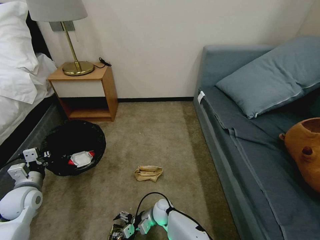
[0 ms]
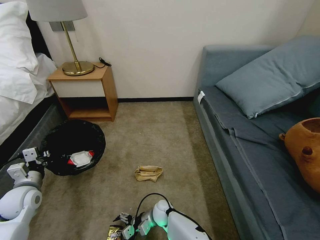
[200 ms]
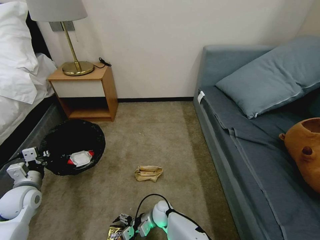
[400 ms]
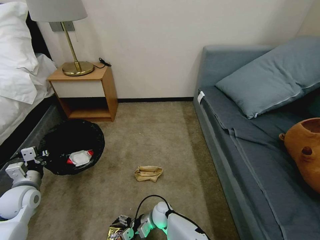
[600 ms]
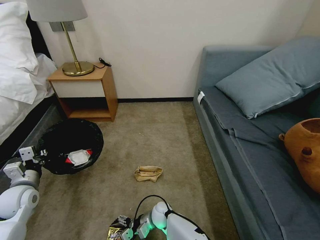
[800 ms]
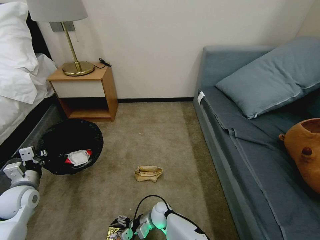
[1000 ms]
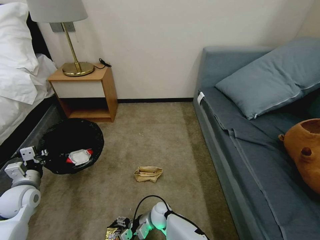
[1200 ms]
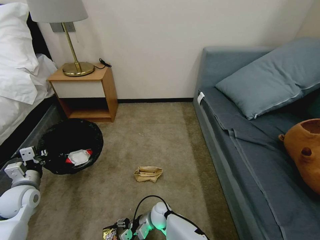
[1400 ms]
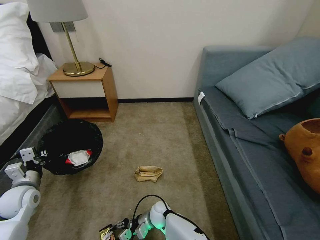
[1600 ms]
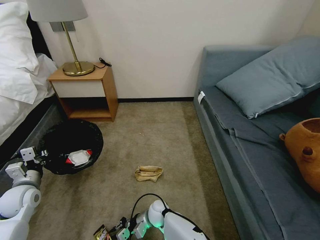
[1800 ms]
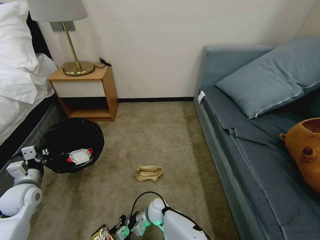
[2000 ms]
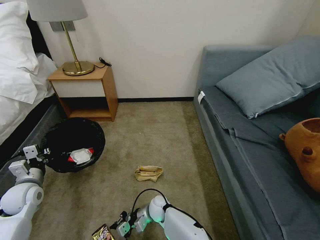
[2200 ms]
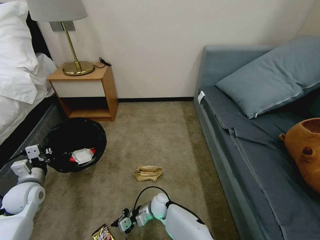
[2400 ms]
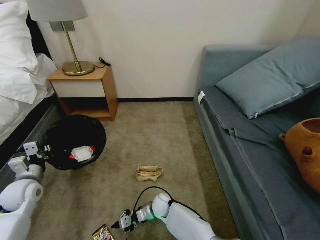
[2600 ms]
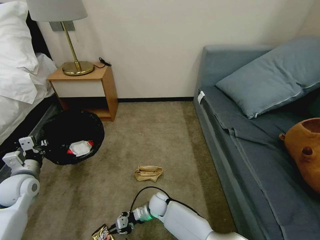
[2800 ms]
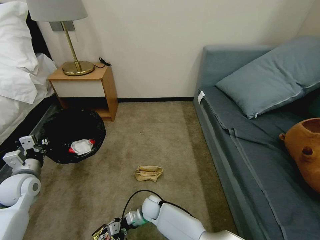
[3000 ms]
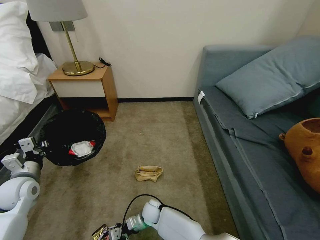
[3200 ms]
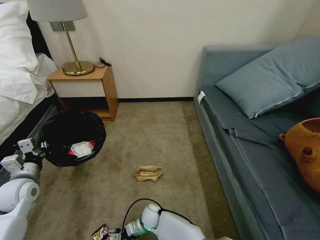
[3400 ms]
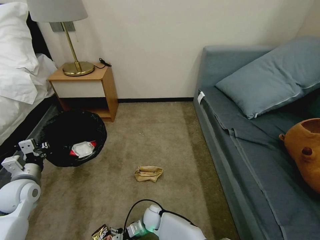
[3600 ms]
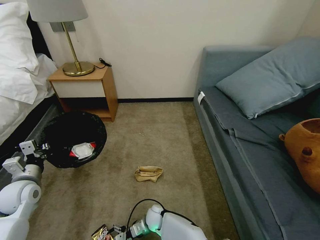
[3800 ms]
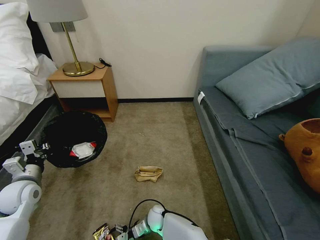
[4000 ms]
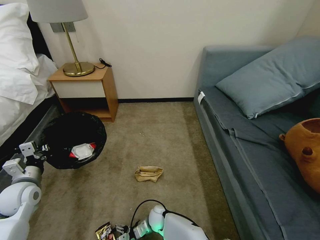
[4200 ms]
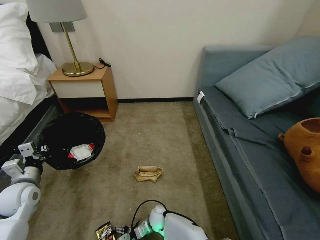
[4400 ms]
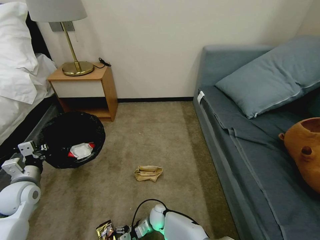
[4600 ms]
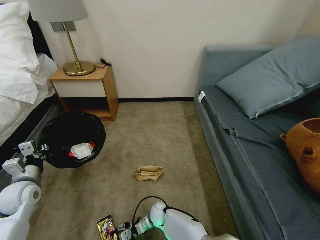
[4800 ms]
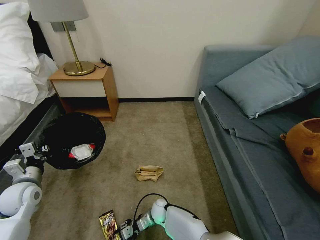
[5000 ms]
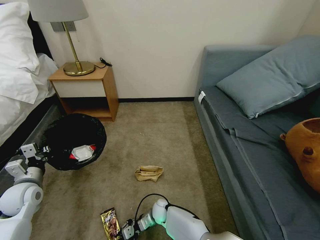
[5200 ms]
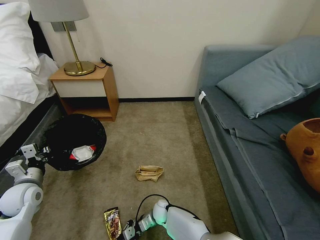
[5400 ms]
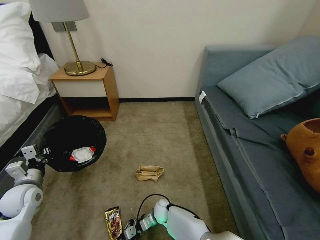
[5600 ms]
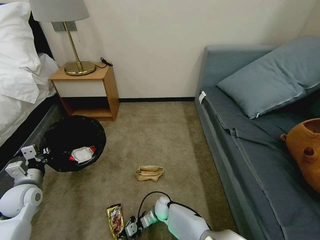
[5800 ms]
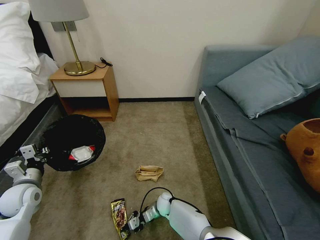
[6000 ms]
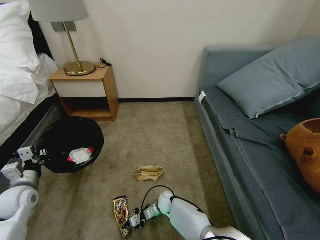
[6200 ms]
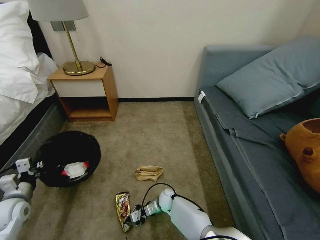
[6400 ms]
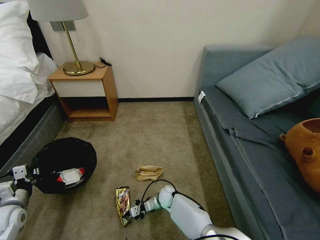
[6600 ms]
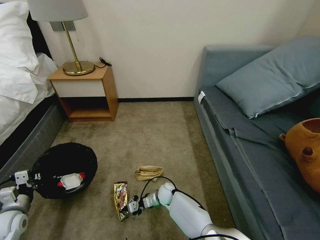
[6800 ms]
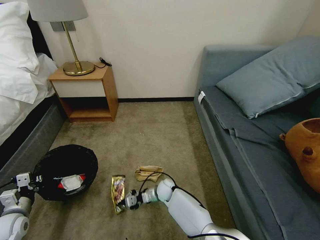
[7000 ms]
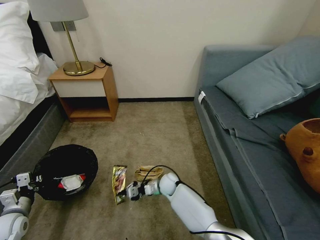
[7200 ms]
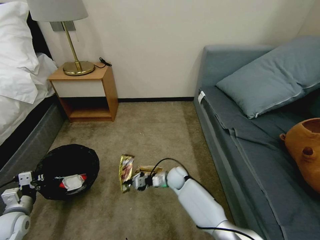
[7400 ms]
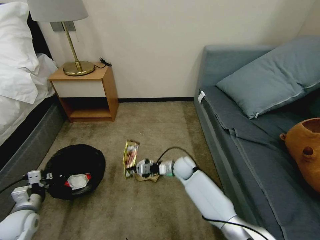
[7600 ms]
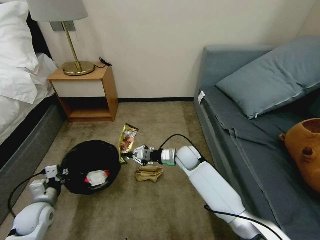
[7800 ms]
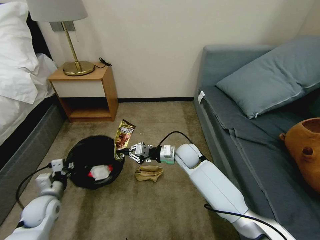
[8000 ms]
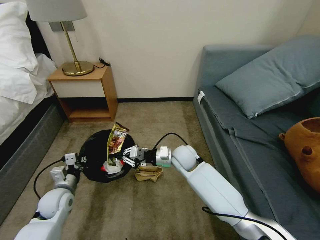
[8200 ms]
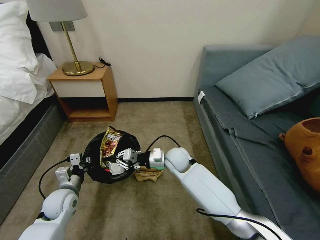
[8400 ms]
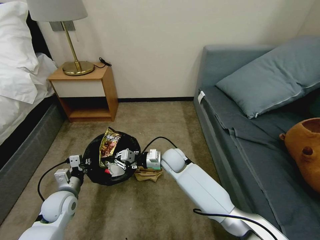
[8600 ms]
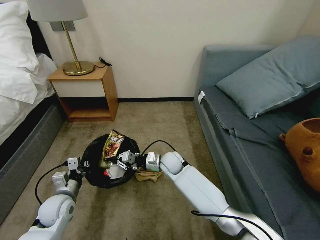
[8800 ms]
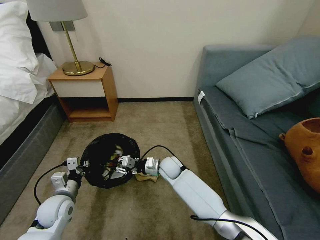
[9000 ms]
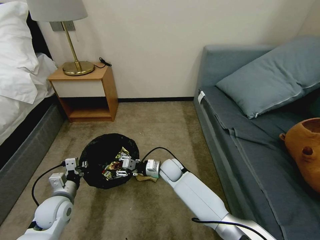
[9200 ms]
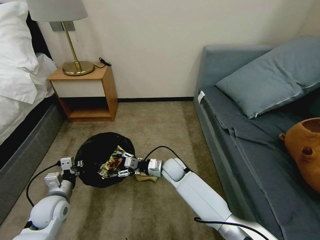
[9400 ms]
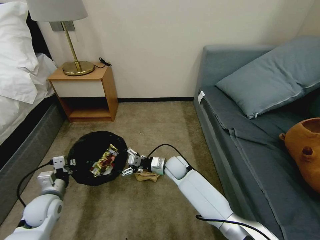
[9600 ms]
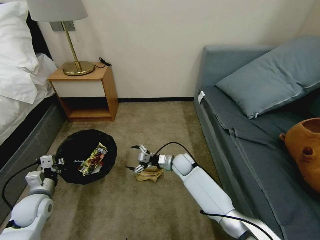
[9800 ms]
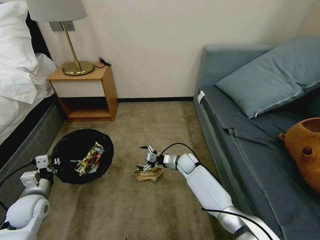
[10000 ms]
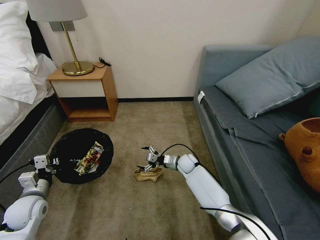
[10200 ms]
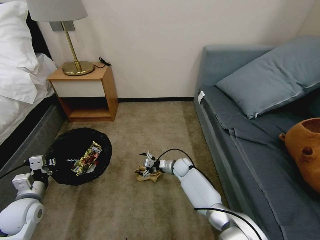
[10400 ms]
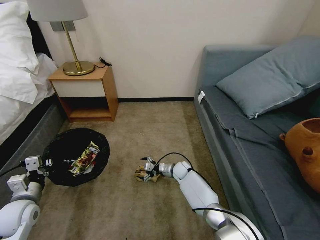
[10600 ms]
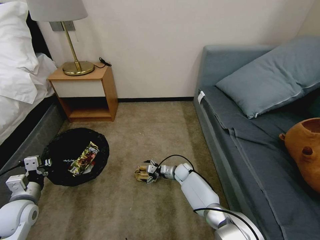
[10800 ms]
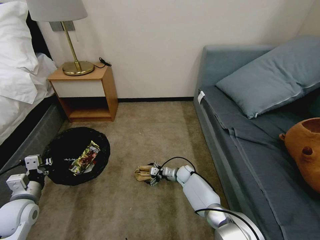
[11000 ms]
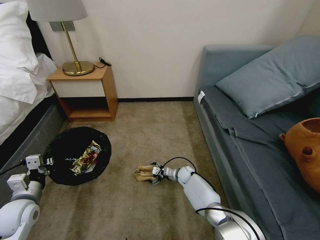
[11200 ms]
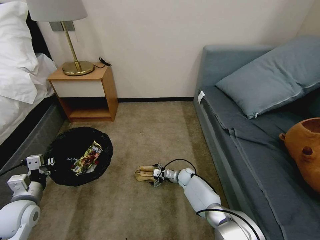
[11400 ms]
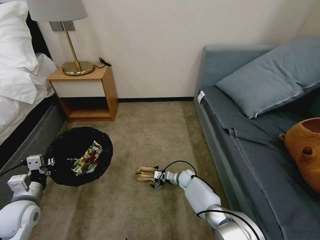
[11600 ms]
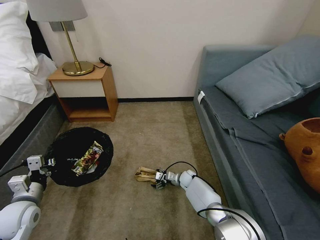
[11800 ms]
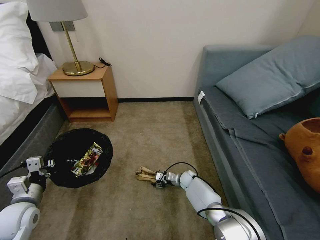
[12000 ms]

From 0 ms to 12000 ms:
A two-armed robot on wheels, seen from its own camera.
Task of the whole recording: Pick up the trash bin, then pick up the garbage on the floor and place it into the trash bin.
From 0 ms to 1600 ms: The right gripper closes up.
From 3000 ms to 4400 ms: The right gripper goes roughly 5 cm downward, and opens its fingers.
From 4400 ms to 6000 ms: The right gripper goes roughly 5 cm forward, and closes up.
From 6000 ms to 7600 ms: The left gripper moves downward and backward, approximately 10 cm. The right gripper heads upward, forward and to the right, covering approximately 20 cm.
From 7600 ms to 9000 ms: The right gripper goes roughly 5 cm to the left, and reaches roughly 10 cm upward, then returns, while the left gripper moves to the right, about 10 cm.
From 9000 ms to 10400 ms: The right gripper shifts some 10 cm downward and to the right, and opens its fingers. The left gripper moves to the left, about 10 cm.
From 10400 ms to 12000 ms: The right gripper travels downward by some 10 cm, and closes up.

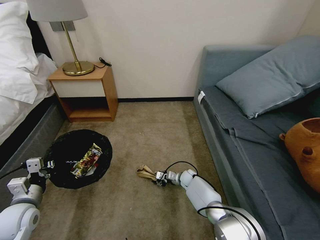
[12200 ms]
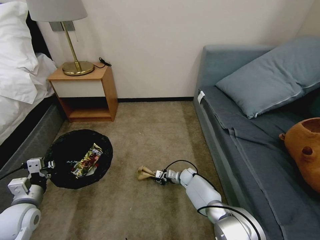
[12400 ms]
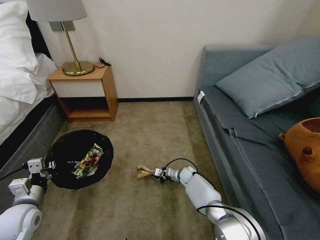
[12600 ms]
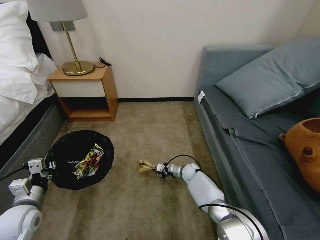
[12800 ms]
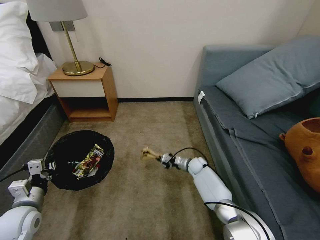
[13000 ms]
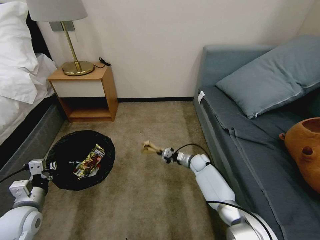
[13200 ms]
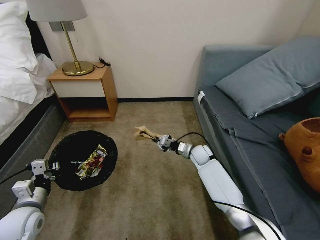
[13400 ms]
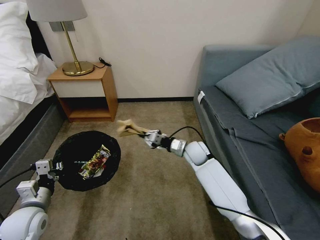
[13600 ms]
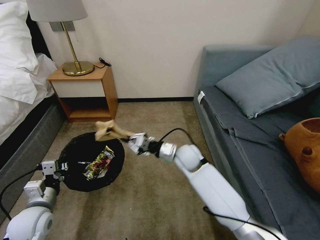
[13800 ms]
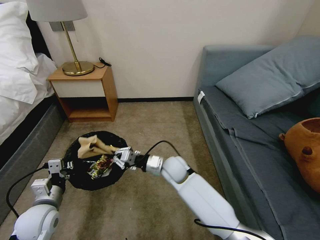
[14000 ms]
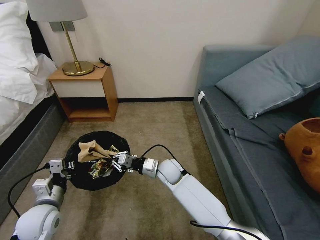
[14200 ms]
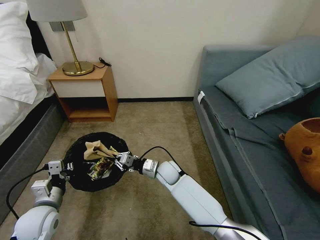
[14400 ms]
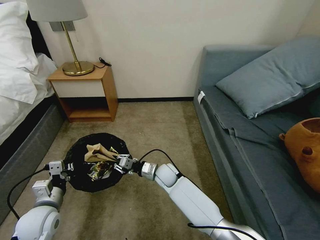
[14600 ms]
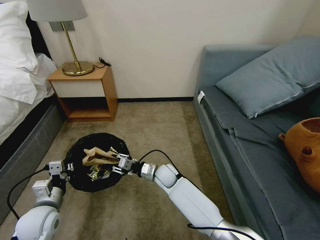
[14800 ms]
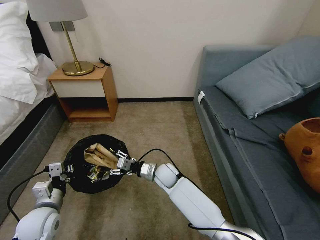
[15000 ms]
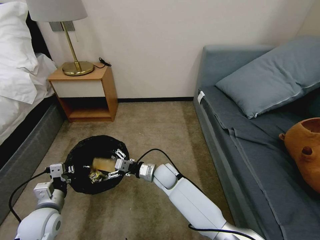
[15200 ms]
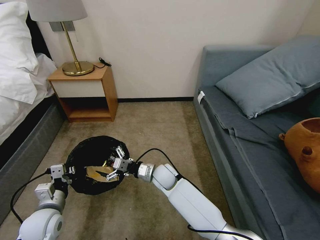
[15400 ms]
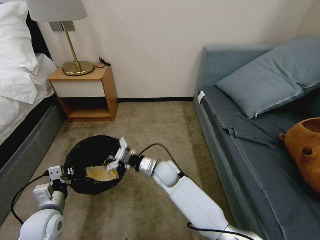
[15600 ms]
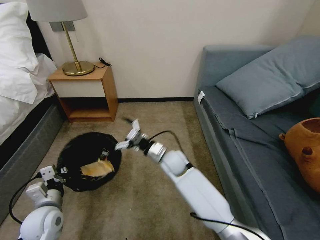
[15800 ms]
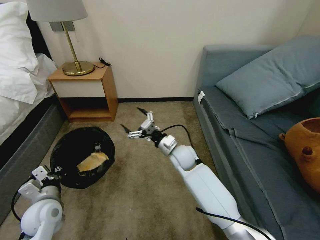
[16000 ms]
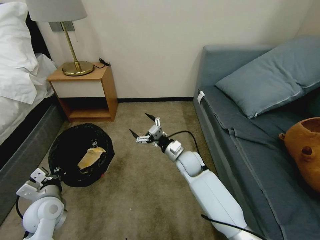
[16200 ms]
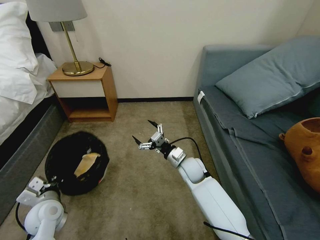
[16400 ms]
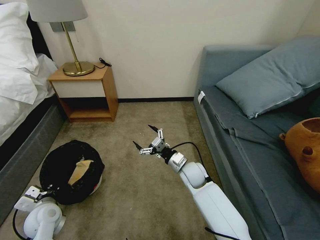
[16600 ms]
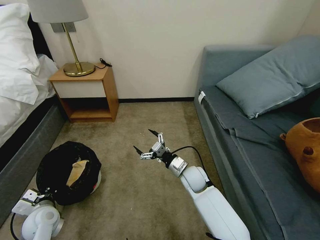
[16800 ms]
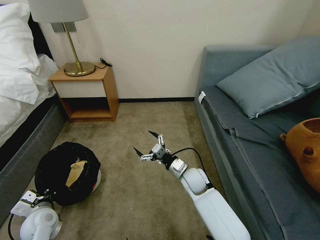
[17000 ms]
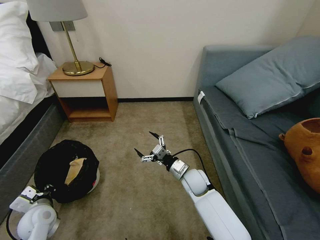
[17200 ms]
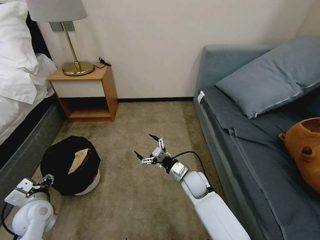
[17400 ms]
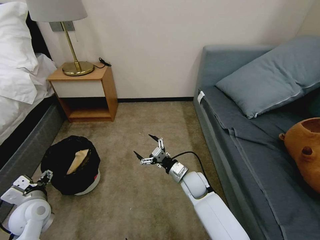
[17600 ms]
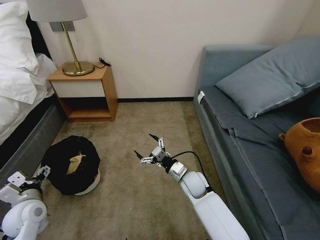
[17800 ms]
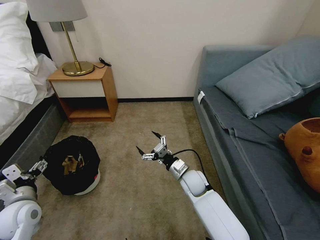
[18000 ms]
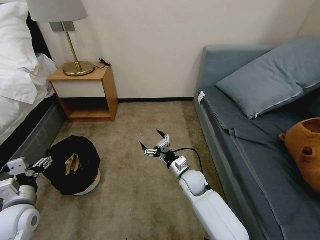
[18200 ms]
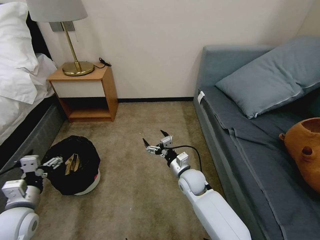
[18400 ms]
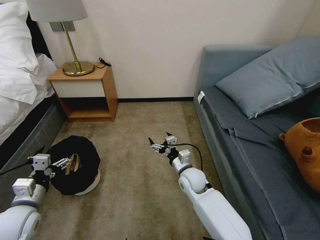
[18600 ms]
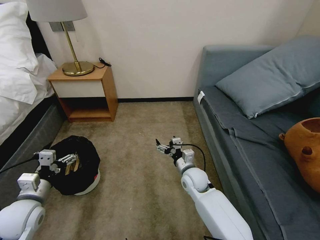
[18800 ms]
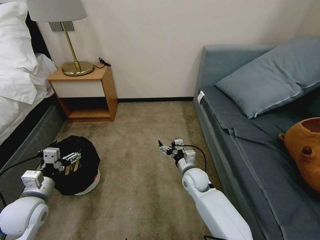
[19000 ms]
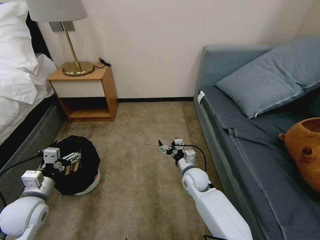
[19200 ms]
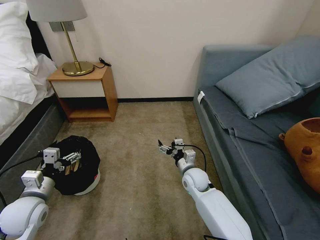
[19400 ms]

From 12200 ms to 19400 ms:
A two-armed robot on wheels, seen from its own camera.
Task of the whole recording: Pick up the trash bin, then pick up the garbage on the floor and place it into the trash bin.
From 12200 ms to 13600 ms: The right gripper shifts approximately 25 cm upward, and closes up.
From 13600 ms to 15000 ms: The right gripper moves to the left, downward and backward, approximately 15 cm, and opens.
From 15000 ms to 16600 ms: The right gripper heads to the right, covering roughly 10 cm, and opens, while the left gripper ends up about 5 cm from where it was.
From 16600 ms to 18000 ms: The left gripper heads upward, covering some 5 cm, and opens its fingers.

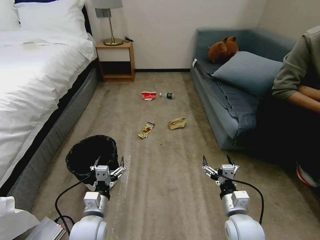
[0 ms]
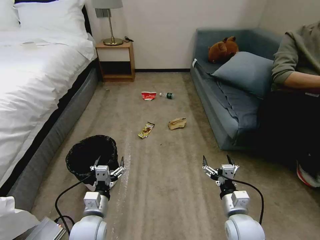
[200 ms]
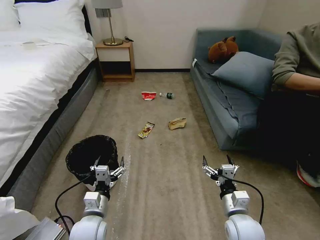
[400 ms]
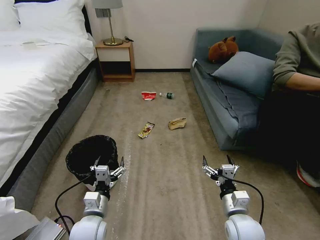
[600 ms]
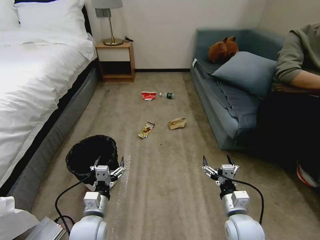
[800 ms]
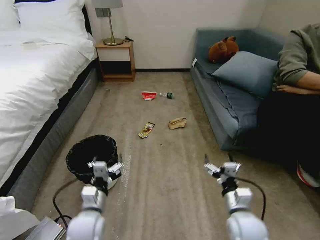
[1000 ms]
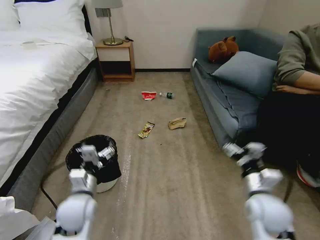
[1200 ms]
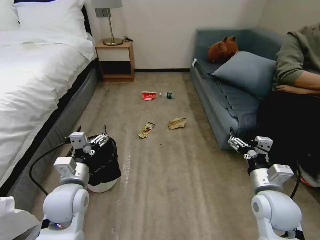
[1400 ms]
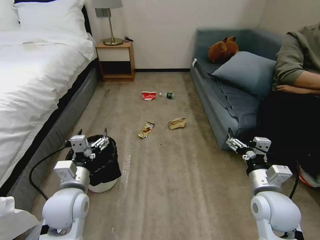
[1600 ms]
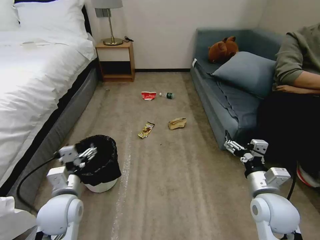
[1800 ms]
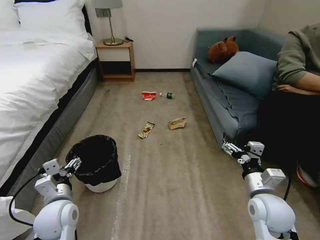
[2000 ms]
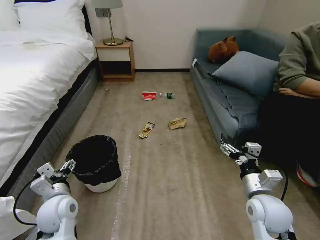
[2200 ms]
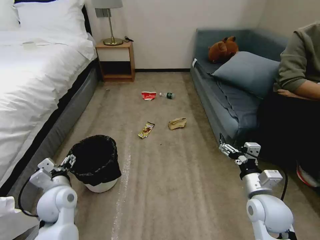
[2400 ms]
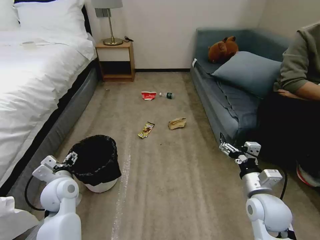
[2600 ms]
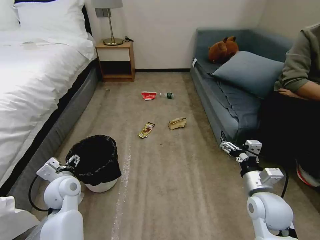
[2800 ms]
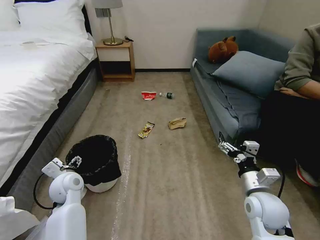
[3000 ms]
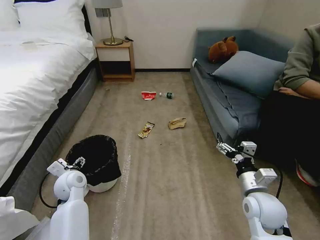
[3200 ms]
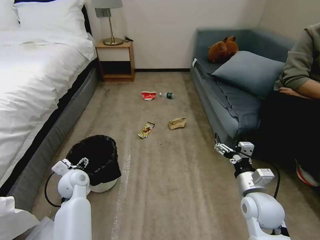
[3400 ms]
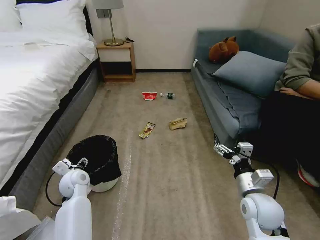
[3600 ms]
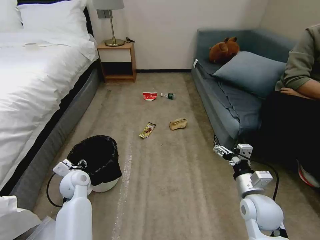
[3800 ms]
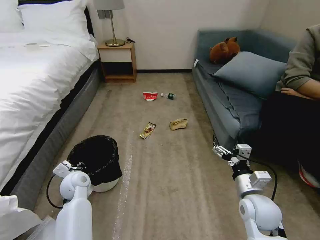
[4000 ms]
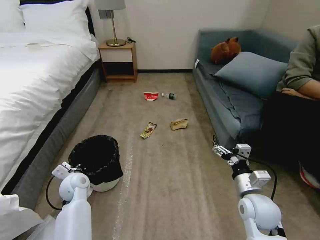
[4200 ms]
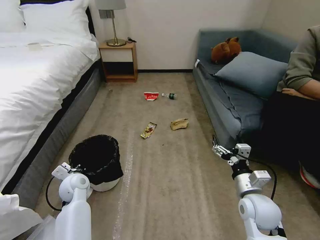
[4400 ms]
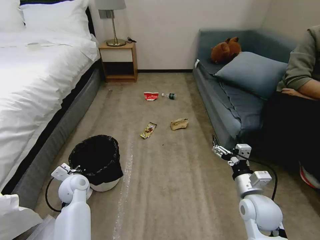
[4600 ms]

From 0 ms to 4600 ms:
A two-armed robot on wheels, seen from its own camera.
Task of the whole recording: Pick up the trash bin, then pick up the garbage on the floor and place it into the trash bin.
From 1600 ms to 3000 ms: The left gripper travels forward, to the left and downward by some 10 cm.
From 3000 ms to 4600 ms: The left gripper shifts by some 5 cm, and closes its fingers.